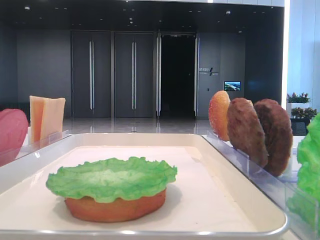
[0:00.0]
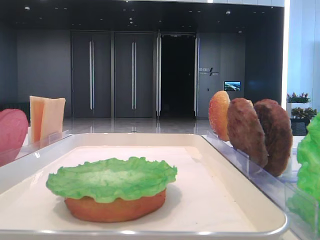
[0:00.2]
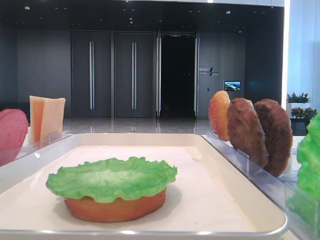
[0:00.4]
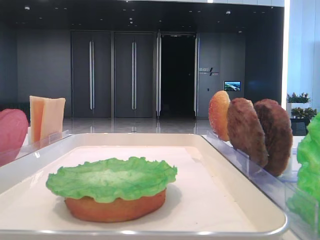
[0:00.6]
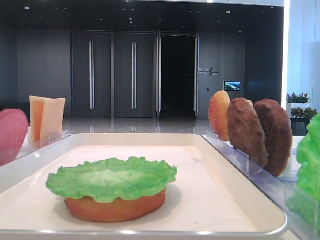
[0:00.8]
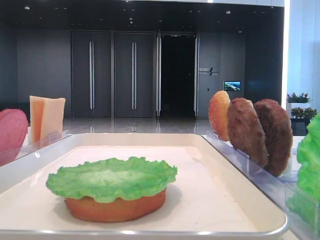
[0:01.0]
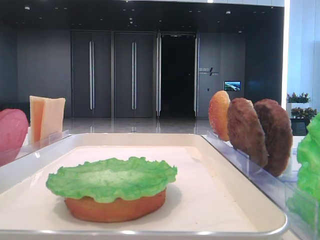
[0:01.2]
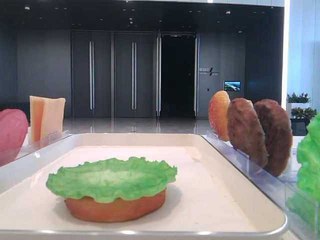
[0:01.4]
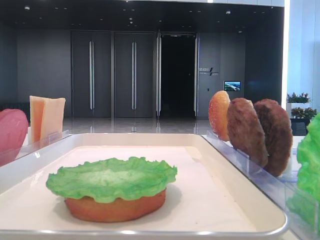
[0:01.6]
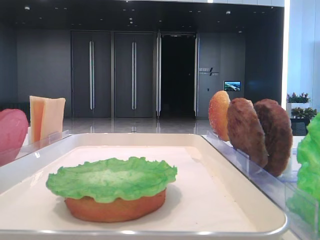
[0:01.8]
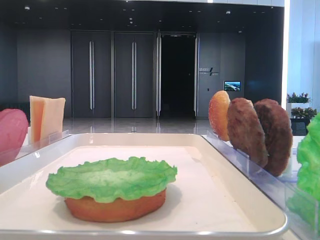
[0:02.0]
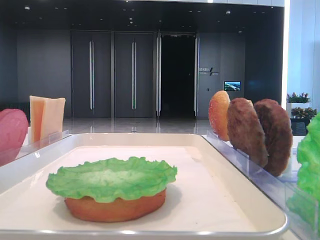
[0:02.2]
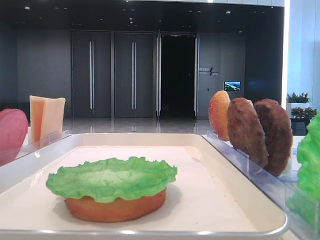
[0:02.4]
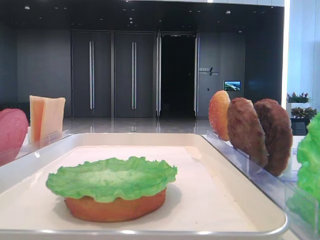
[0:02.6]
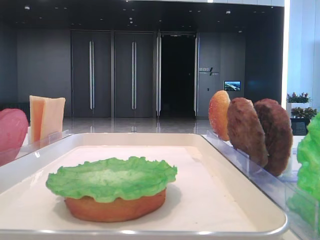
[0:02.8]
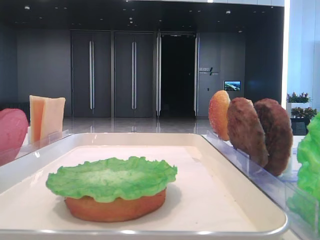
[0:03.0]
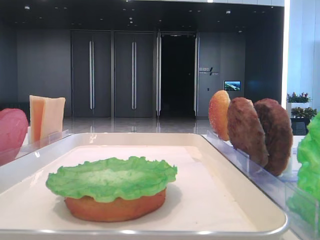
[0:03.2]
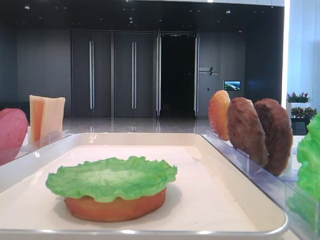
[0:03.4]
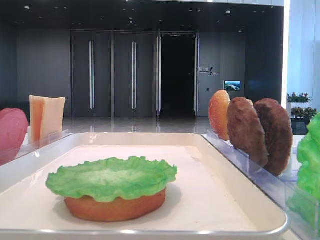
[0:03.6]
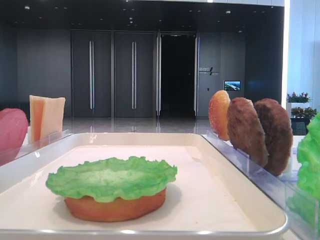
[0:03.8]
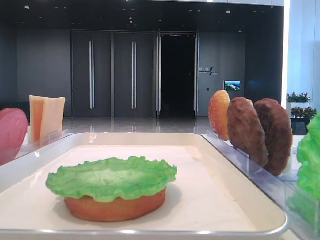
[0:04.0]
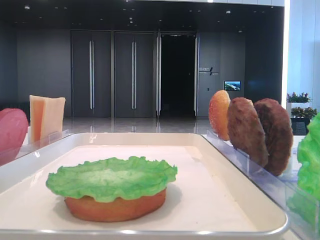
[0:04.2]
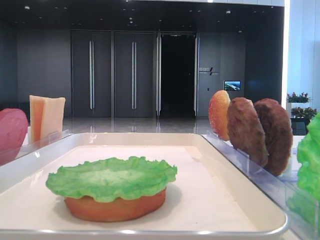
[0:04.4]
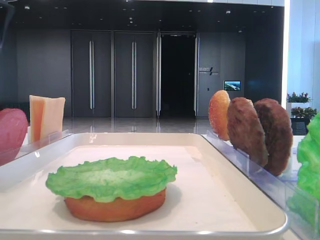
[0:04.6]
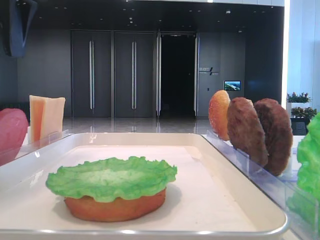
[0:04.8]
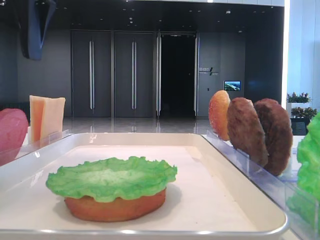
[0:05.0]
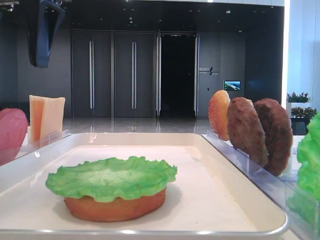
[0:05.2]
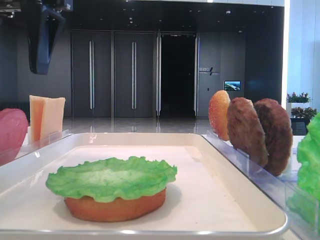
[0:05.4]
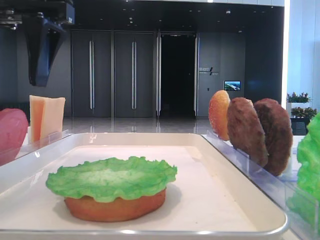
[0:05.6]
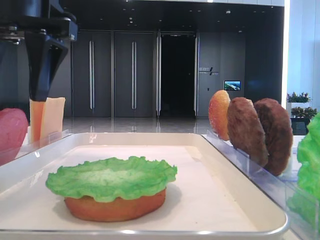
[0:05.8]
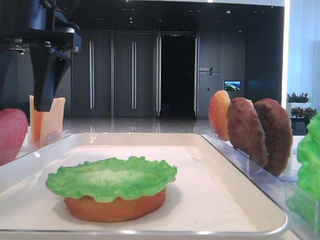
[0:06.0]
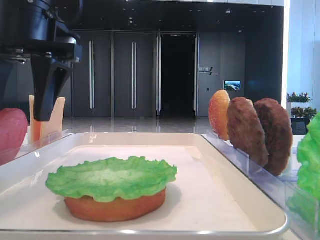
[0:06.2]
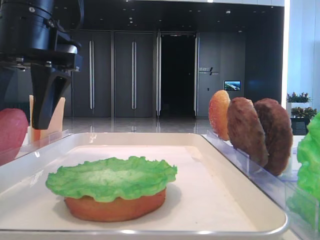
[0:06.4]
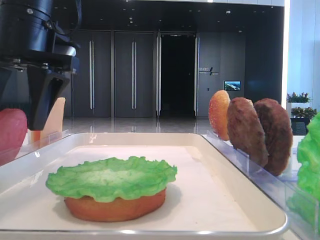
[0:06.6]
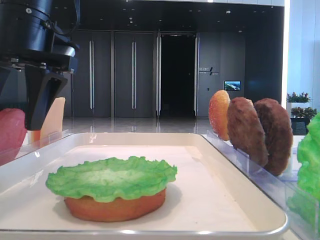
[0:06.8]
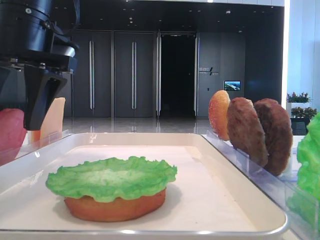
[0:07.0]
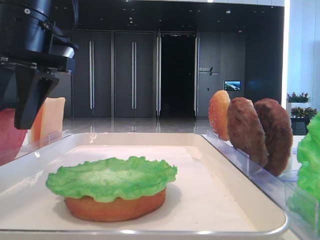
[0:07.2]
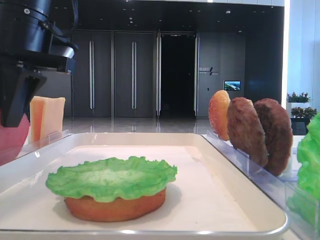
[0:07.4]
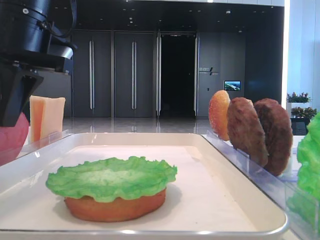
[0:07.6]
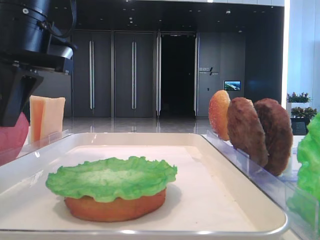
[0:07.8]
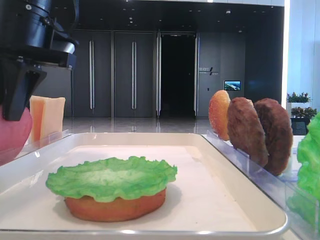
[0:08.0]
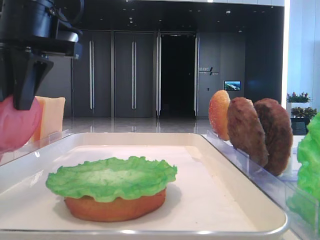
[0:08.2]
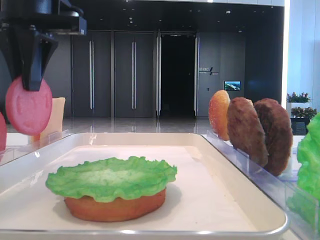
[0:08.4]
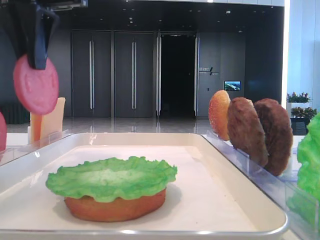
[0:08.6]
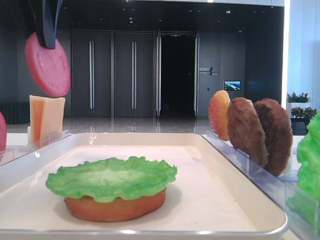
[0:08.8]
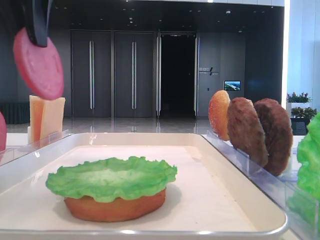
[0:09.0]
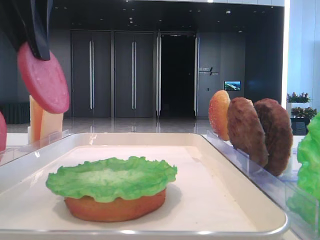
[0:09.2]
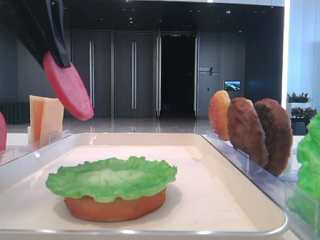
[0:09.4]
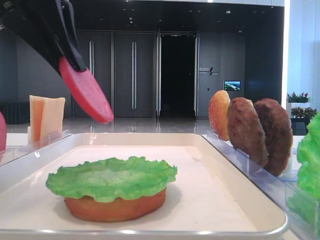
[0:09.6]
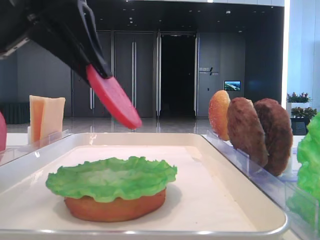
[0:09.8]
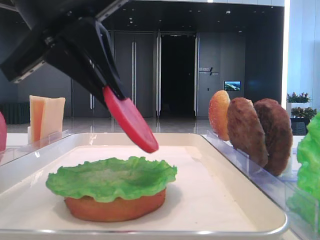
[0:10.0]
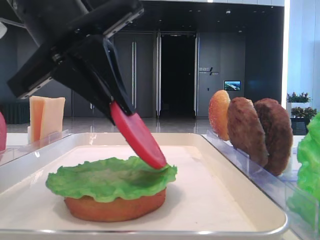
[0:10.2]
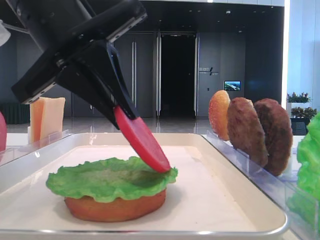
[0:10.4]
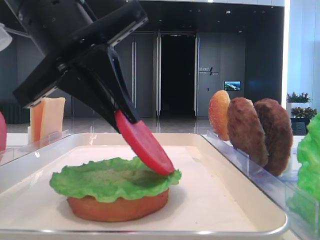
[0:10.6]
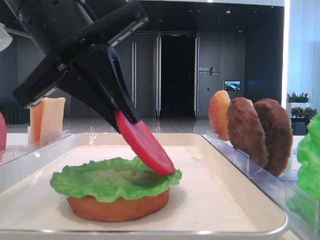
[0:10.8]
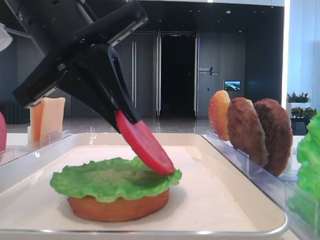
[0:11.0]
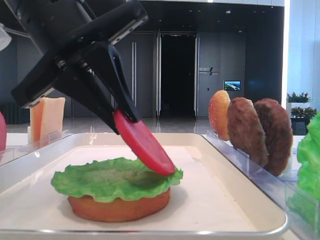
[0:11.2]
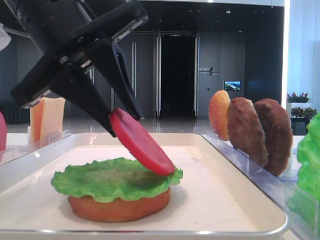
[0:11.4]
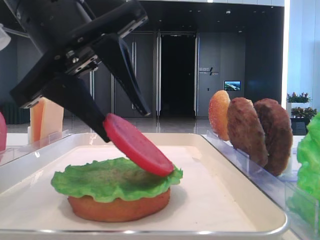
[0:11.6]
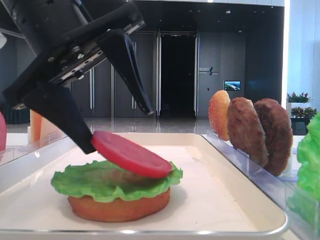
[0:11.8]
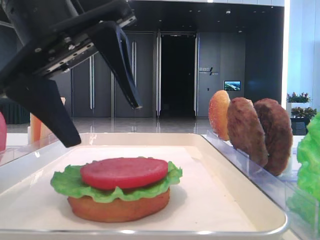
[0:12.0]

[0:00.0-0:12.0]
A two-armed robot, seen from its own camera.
Step, 0:00.0 to 0:07.8: Pick up the tomato slice with the left hand.
Step, 0:08.0 to 0:11.8: Place the tomato slice on the lettuce leaf with the left hand.
0:04.4 to 0:06.0: The left gripper goes about 15 cm to the right and downward.
0:06.0 to 0:07.6: The left gripper closes.
0:07.6 to 0:09.0: The left gripper moves upward, roughly 10 cm.
0:09.0 to 0:10.4: The left gripper is displaced downward and to the right by approximately 10 cm.
0:10.4 to 0:12.0: The left gripper opens its fingers.

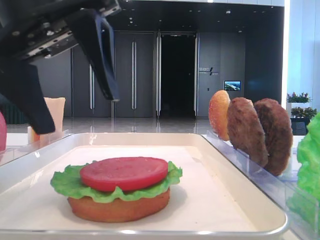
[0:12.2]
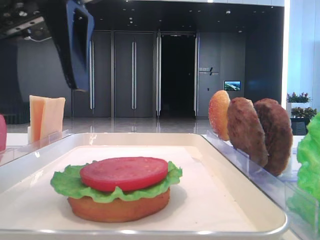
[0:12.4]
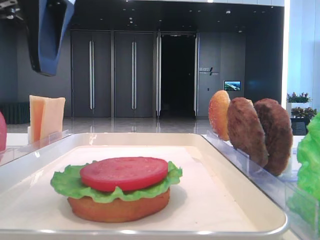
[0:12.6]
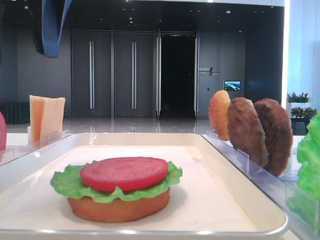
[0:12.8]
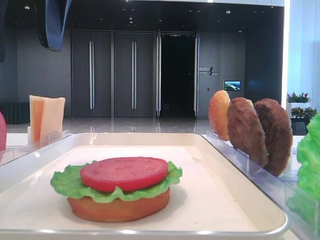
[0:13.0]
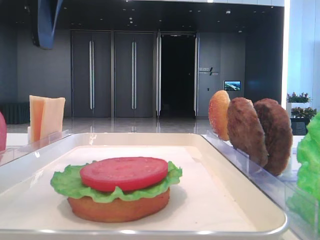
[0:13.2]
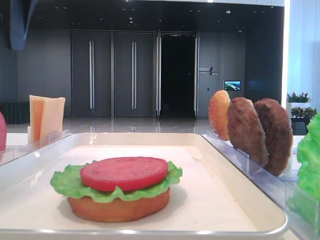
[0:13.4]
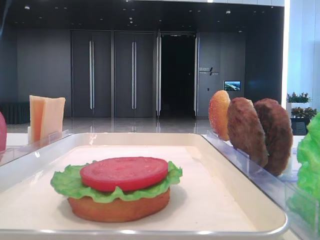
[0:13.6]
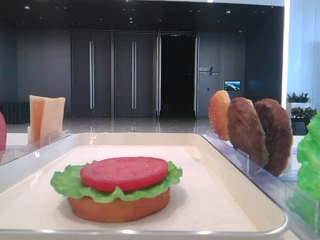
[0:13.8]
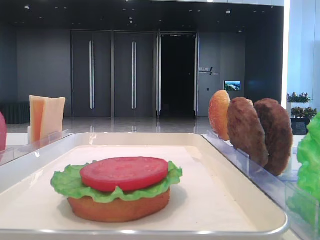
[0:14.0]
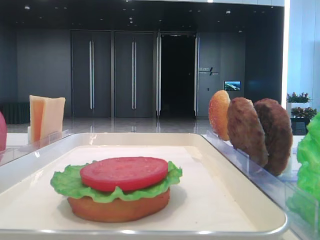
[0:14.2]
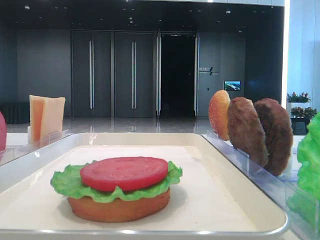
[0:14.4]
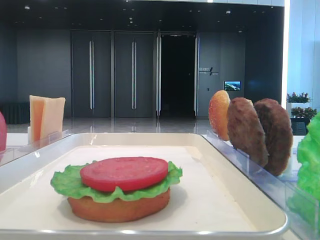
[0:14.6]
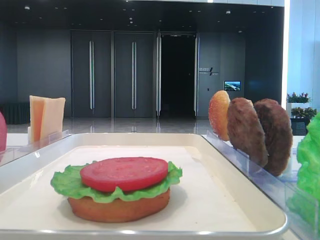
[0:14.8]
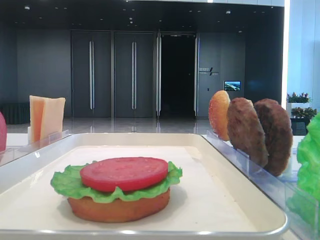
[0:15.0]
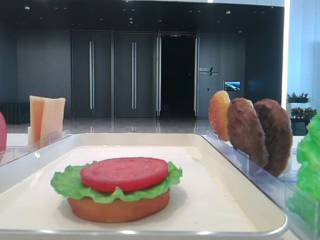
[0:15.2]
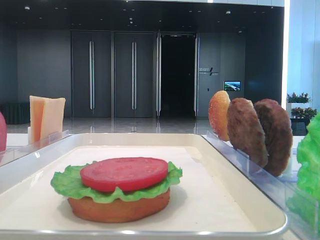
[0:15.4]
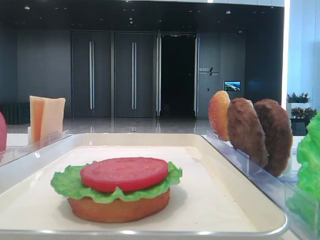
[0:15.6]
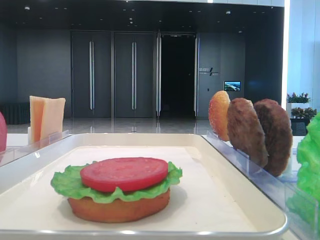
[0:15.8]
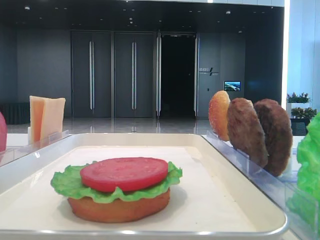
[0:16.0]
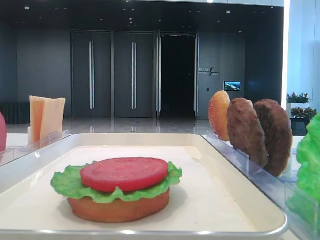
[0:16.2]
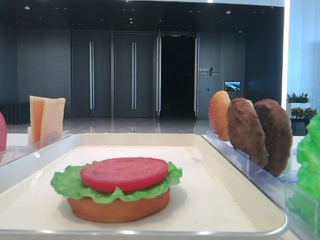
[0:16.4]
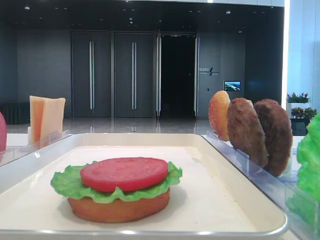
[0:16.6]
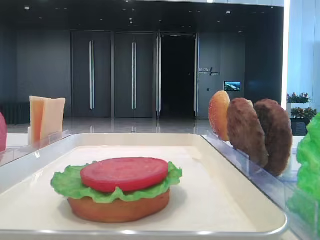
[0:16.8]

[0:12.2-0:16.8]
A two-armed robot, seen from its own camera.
0:12.2 to 0:13.8: The left gripper goes roughly 20 cm to the left, upward and forward.

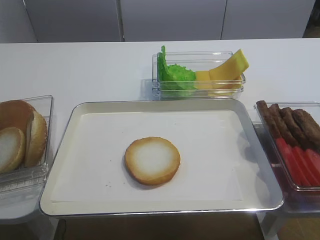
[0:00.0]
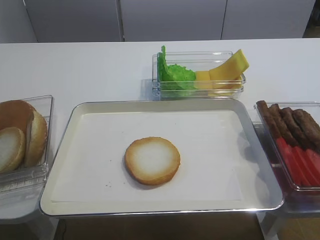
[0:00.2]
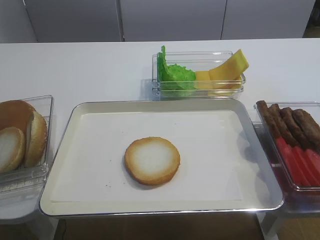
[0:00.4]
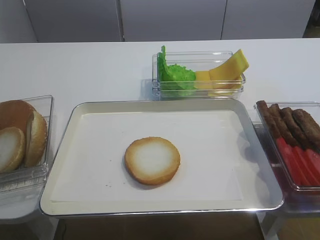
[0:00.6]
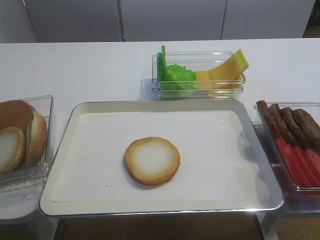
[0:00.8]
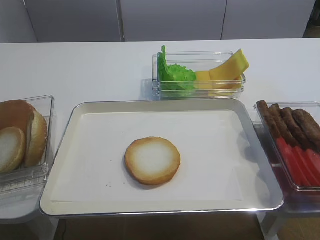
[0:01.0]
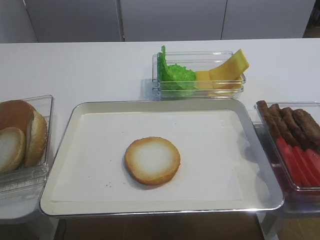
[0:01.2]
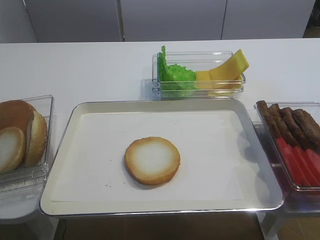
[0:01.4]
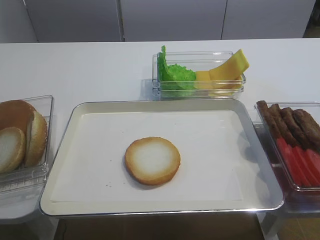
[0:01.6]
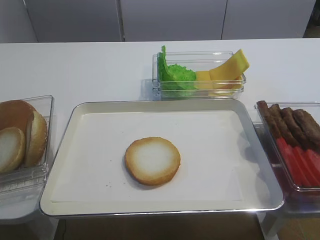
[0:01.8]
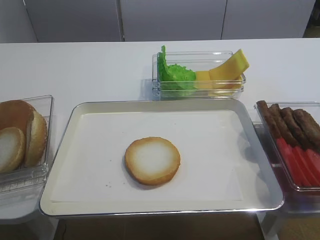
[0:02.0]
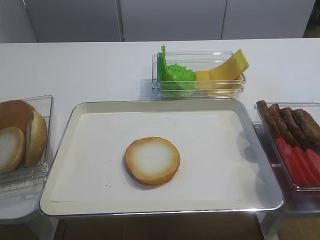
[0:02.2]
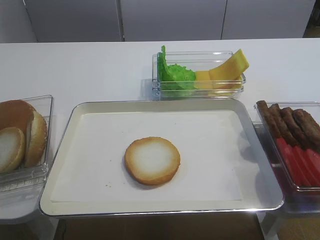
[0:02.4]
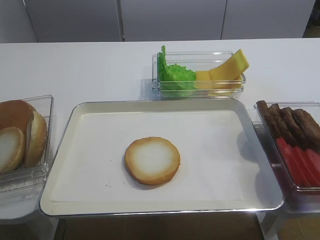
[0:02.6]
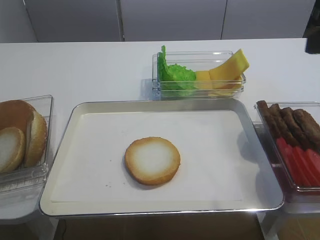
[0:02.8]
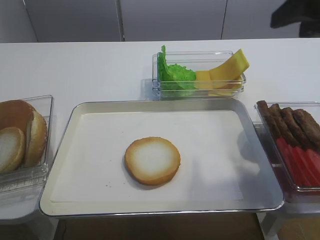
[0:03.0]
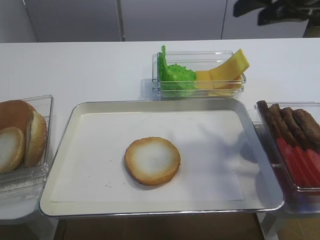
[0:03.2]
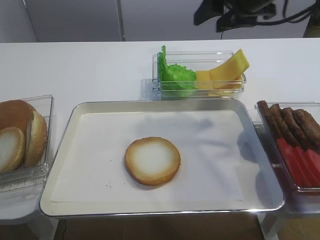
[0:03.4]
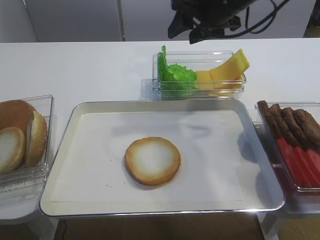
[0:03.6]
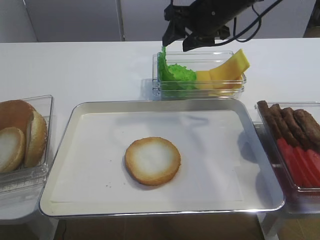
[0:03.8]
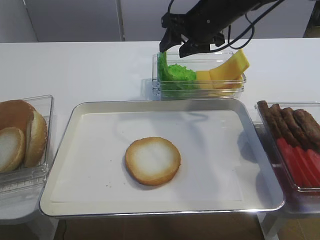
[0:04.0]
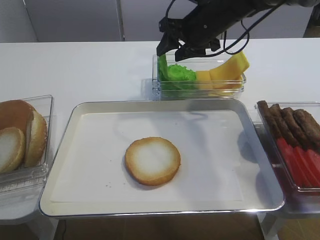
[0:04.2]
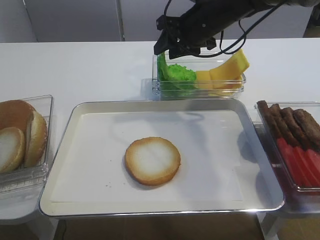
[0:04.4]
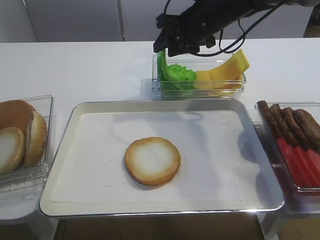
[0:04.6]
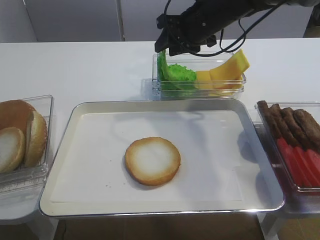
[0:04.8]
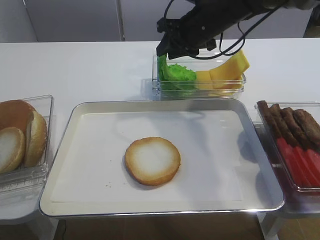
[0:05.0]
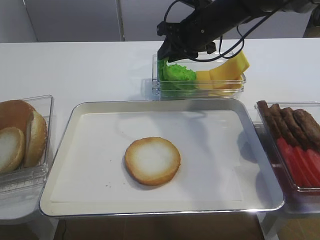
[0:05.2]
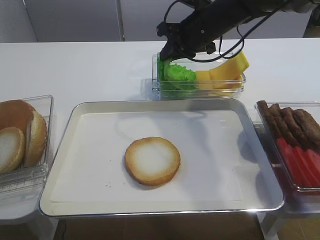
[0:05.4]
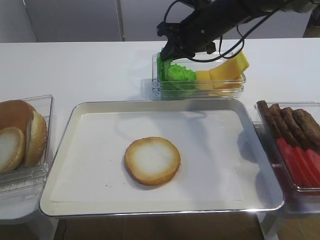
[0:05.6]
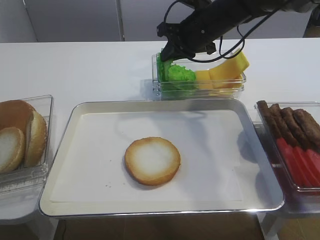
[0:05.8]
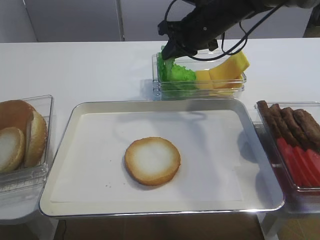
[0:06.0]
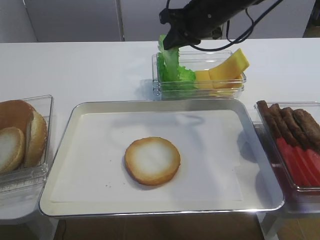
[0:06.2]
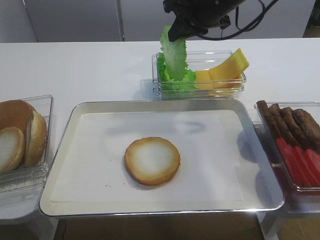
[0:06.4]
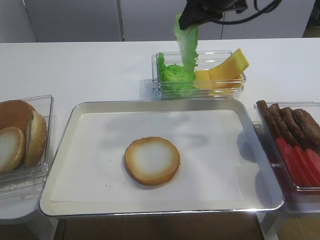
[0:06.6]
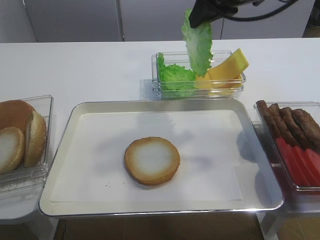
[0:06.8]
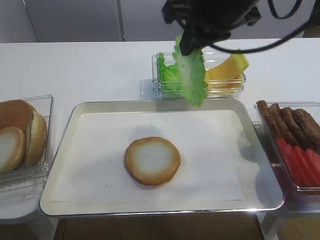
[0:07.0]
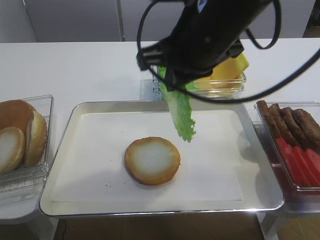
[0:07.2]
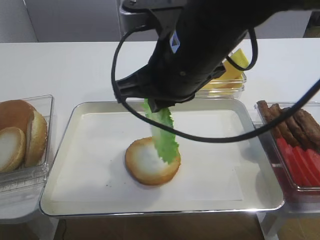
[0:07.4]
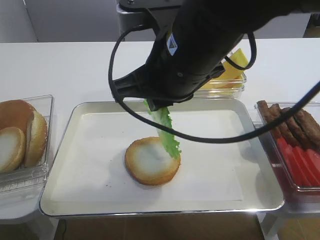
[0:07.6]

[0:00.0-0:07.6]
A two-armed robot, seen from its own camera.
Step, 0:00.0 to 0:06.2: Pick up the lettuce leaf with the right gripper.
0:01.6 to 0:03.0: The right gripper moves forward, about 25 cm.
0:03.0 to 0:04.6: The right gripper travels forward, to the left and downward by some 25 cm.
0:04.6 to 0:06.0: The right gripper closes up.
0:06.0 to 0:07.6: The right gripper travels backward by some 20 cm.
